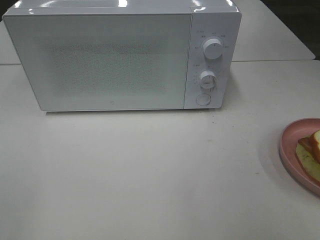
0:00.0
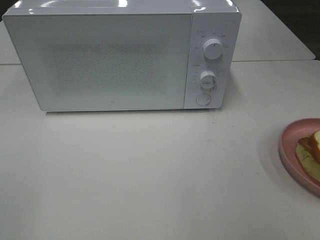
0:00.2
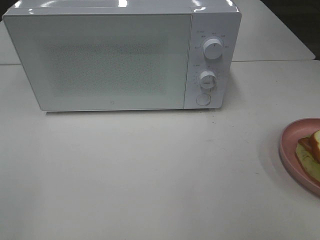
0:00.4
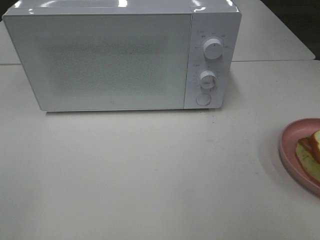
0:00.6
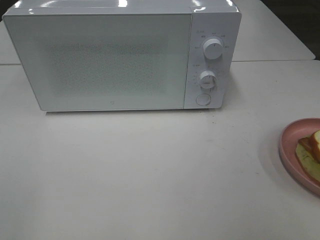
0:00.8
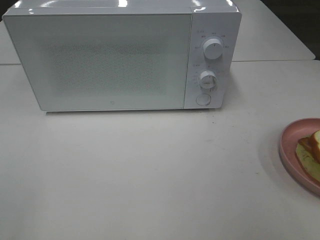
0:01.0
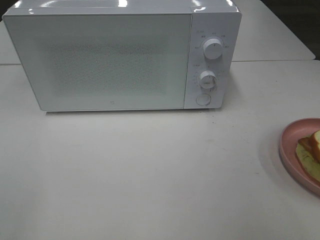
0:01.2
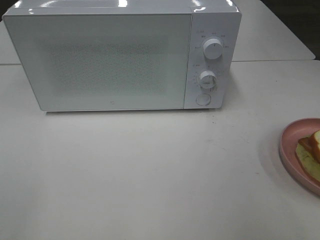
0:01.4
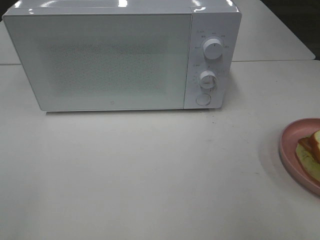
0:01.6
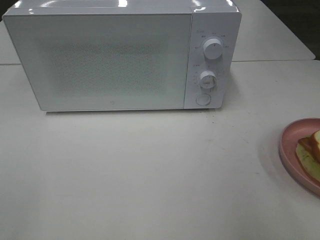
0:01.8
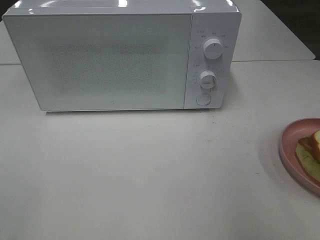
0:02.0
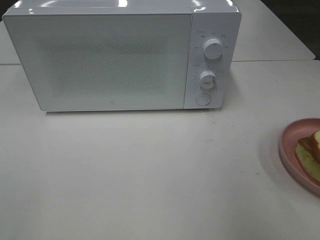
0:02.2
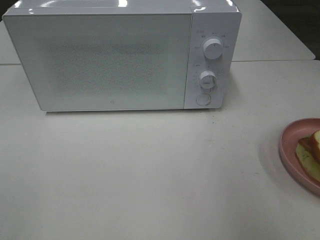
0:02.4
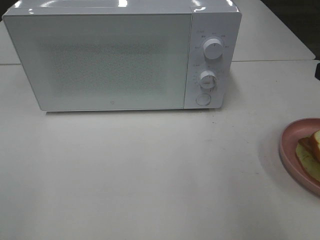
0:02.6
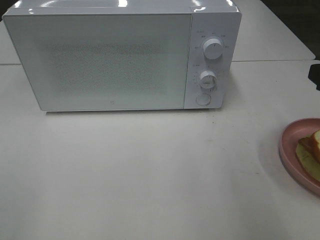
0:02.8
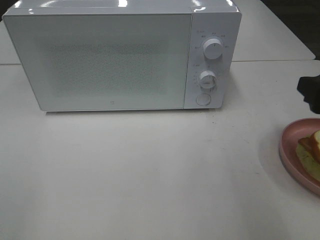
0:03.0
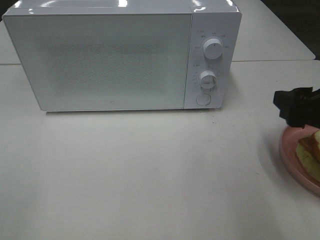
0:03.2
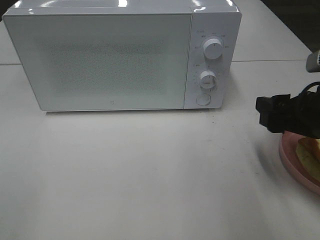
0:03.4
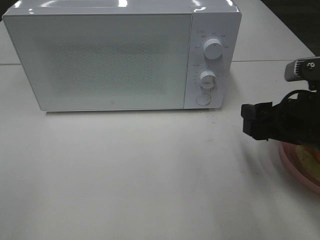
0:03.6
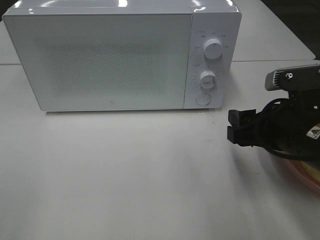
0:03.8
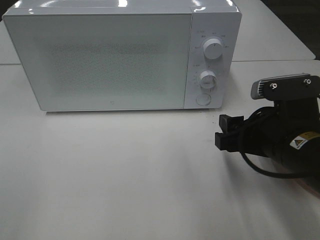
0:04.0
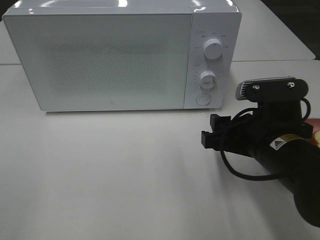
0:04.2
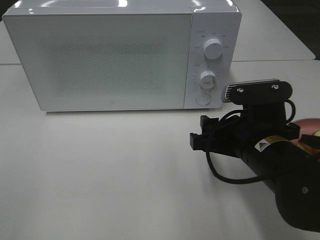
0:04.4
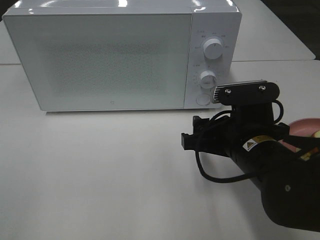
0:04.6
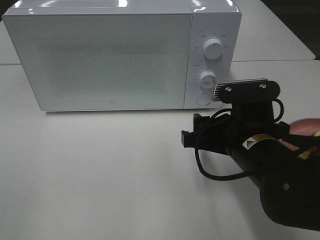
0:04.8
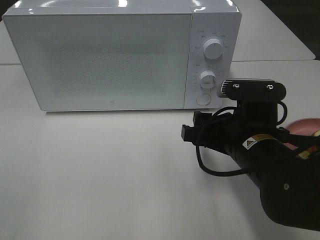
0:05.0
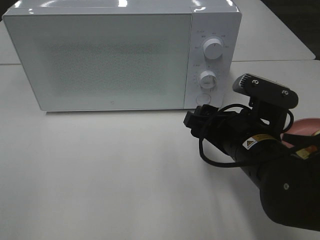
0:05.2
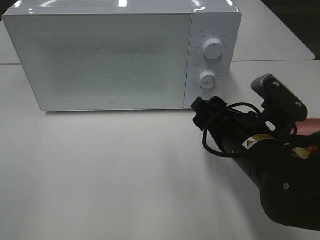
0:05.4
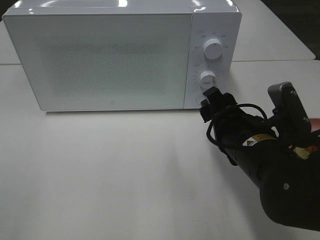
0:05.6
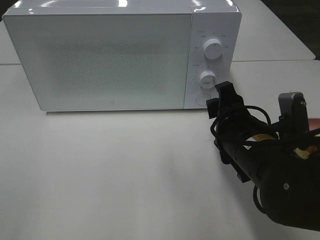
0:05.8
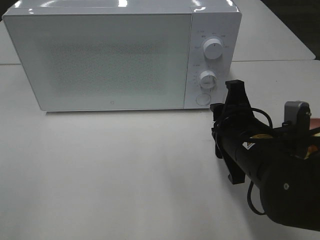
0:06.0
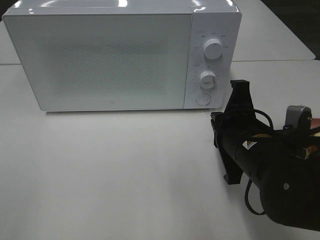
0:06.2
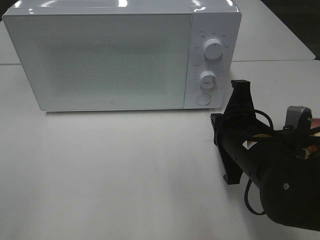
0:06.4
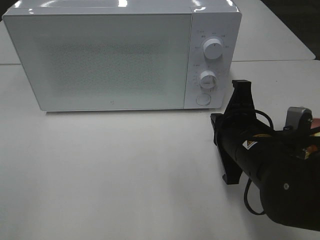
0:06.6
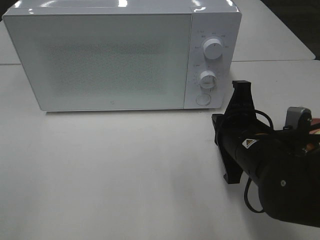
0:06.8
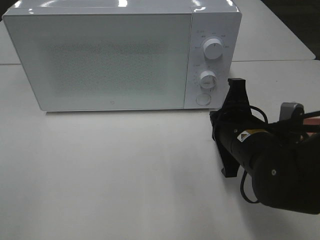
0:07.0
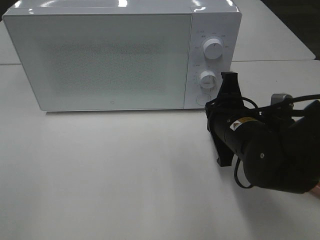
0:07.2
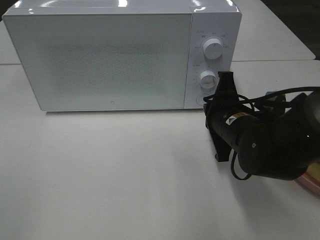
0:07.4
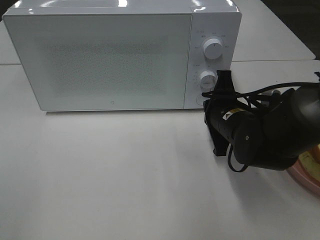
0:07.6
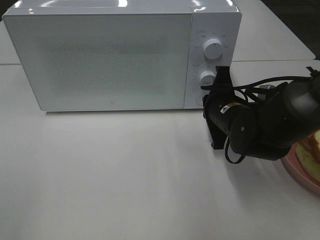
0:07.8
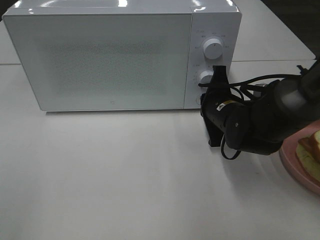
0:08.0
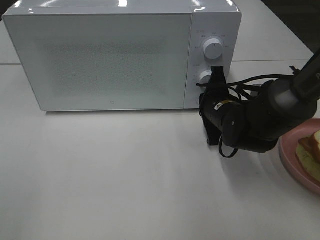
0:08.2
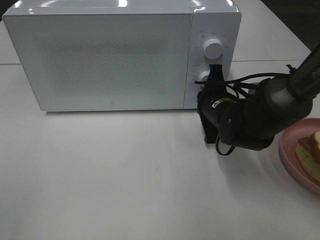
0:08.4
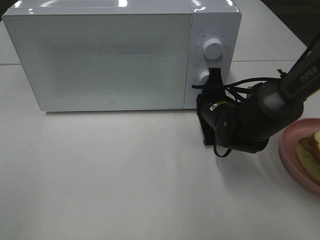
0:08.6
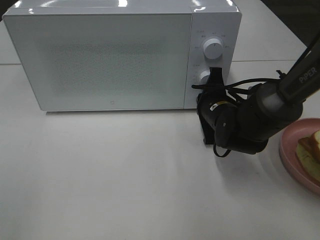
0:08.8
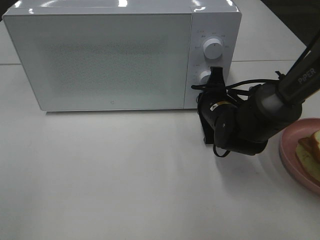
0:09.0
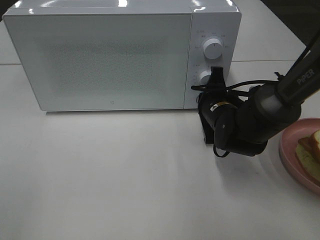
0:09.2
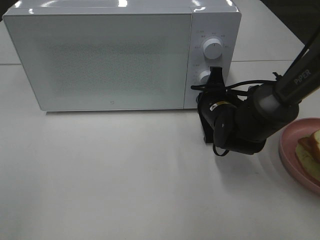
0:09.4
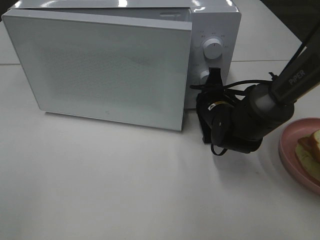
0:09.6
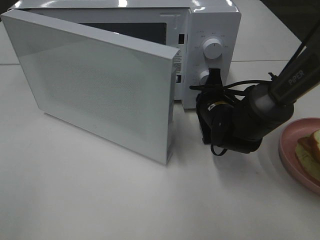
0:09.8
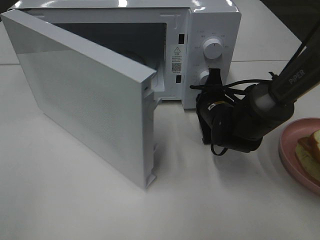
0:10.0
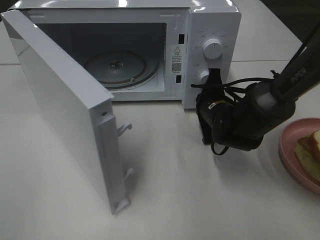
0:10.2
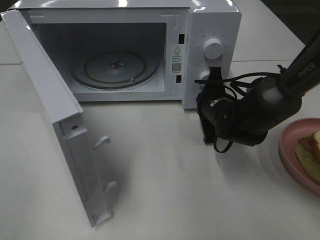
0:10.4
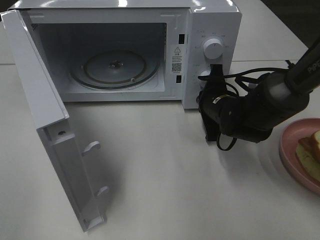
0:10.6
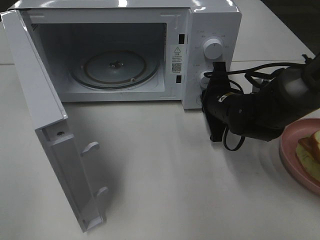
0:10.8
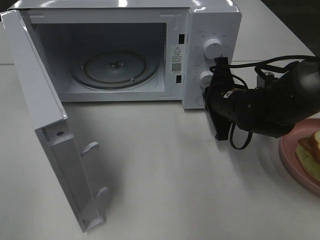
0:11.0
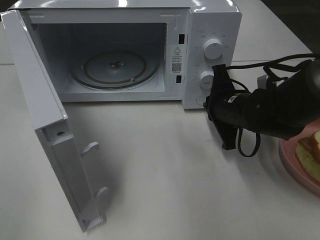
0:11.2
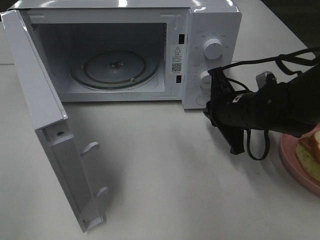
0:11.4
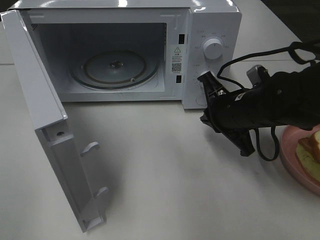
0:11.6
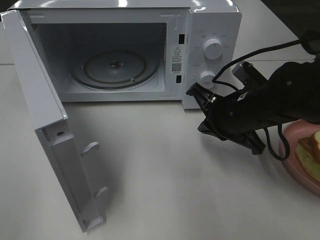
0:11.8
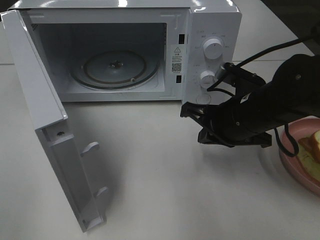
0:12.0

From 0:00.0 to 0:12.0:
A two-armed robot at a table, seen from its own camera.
Task of the whole recording: Heat Sandwich.
Step, from 0:00.0 to 0:11.0: Right hand: press the switch.
From 0:01.6 to 0:03.0: The right gripper shifts approximately 15 cm forward and downward.
From 0:03.0 to 0:04.4: The right gripper shifts approximately 15 cm to the left and downward.
From 0:06.0 to 0:07.6: The right gripper shifts some 10 cm forward, and closes its fingers.
From 0:07.6 to 0:09.0: The right gripper shifts by some 5 cm.
From 0:10.4 to 0:12.0: The right gripper travels backward and upward by approximately 10 cm.

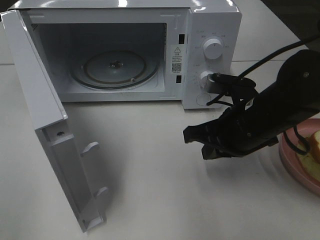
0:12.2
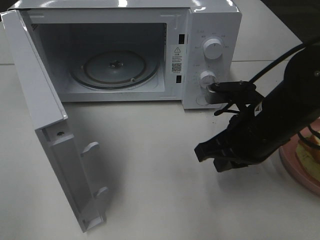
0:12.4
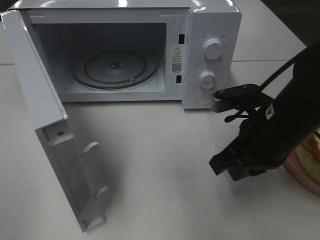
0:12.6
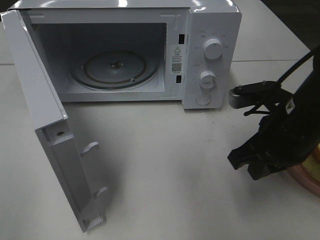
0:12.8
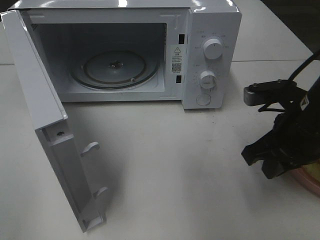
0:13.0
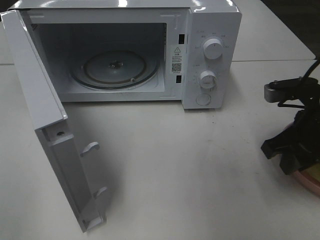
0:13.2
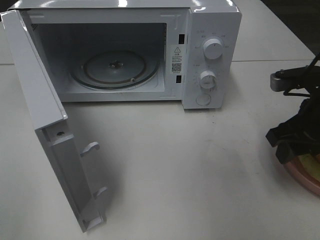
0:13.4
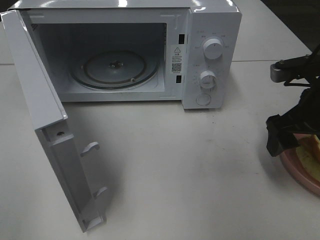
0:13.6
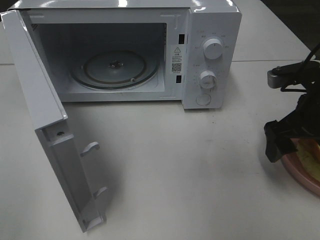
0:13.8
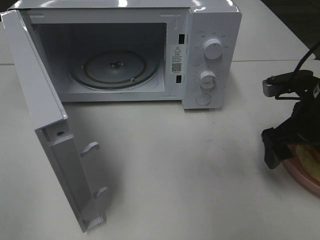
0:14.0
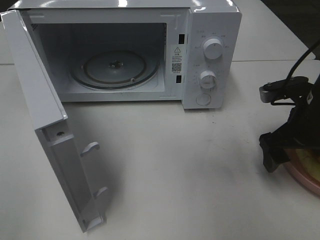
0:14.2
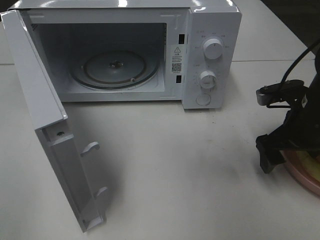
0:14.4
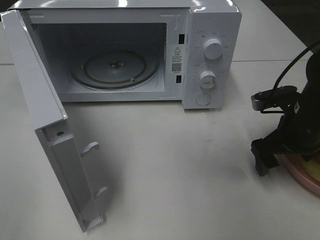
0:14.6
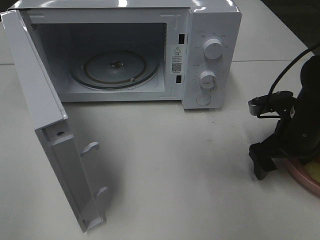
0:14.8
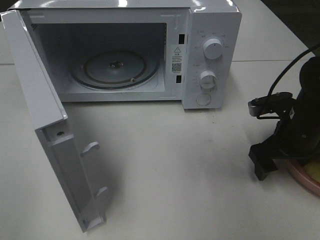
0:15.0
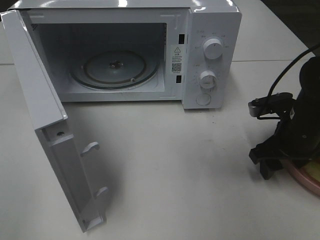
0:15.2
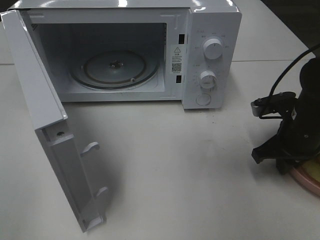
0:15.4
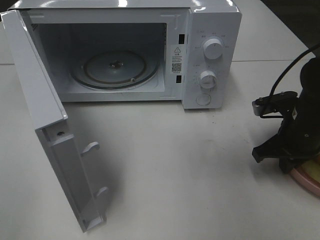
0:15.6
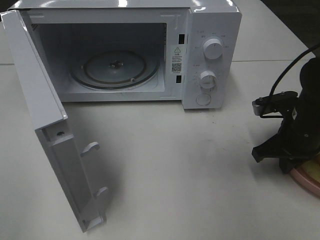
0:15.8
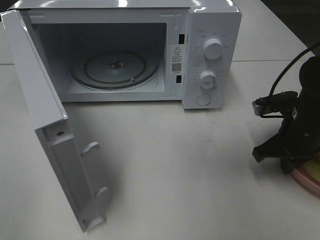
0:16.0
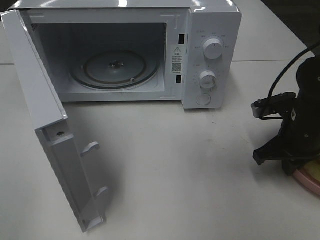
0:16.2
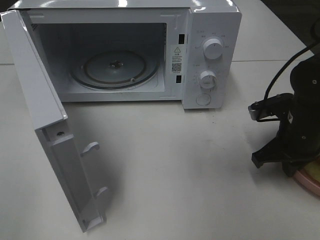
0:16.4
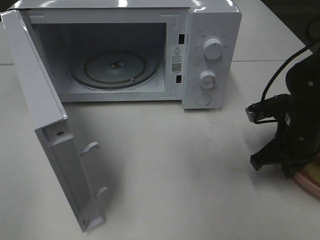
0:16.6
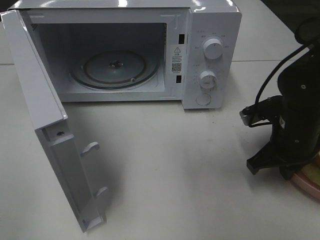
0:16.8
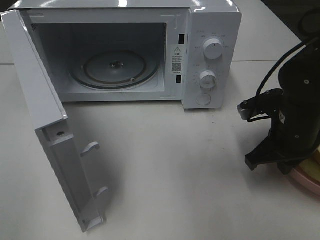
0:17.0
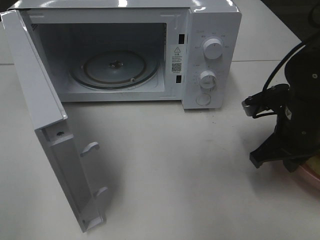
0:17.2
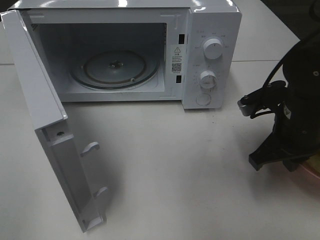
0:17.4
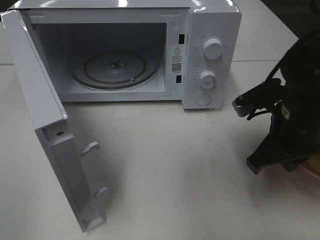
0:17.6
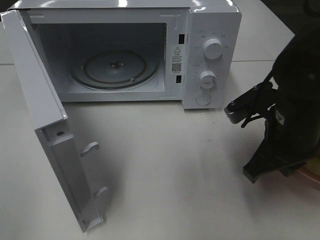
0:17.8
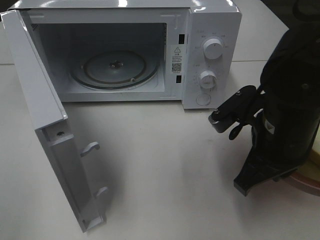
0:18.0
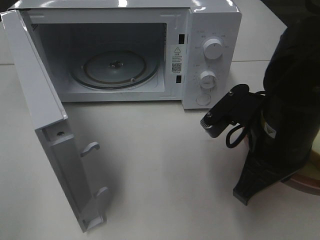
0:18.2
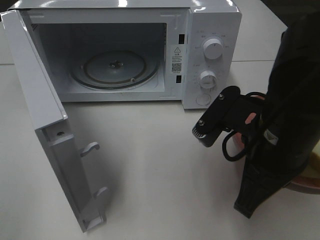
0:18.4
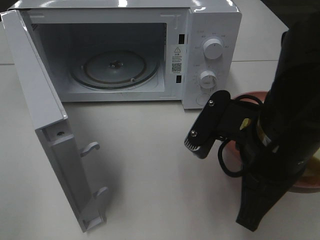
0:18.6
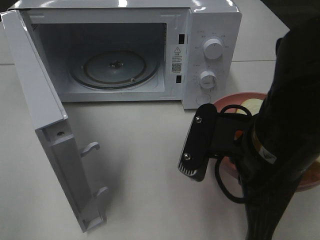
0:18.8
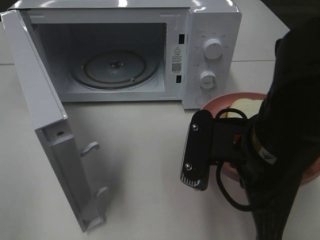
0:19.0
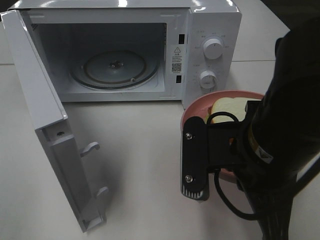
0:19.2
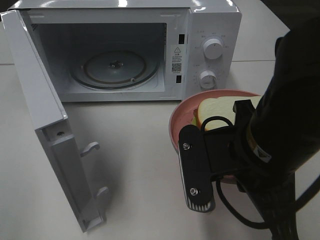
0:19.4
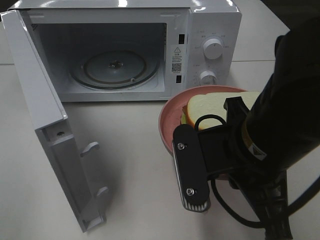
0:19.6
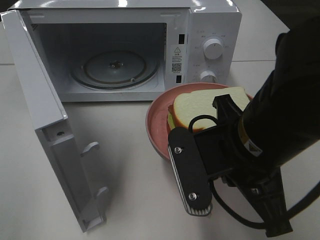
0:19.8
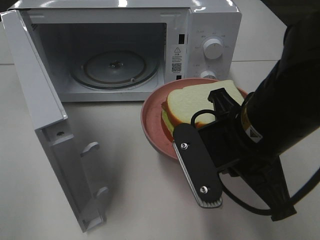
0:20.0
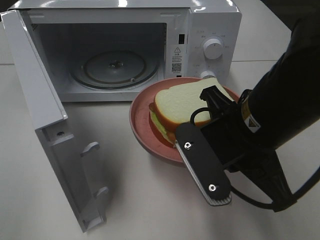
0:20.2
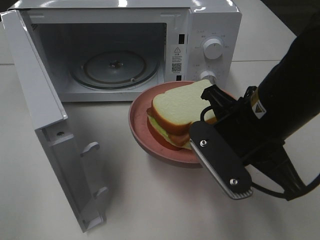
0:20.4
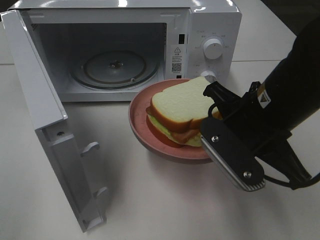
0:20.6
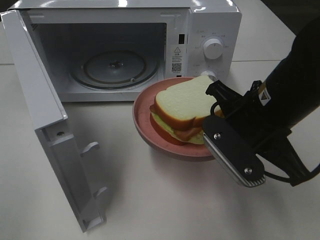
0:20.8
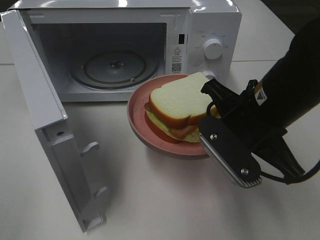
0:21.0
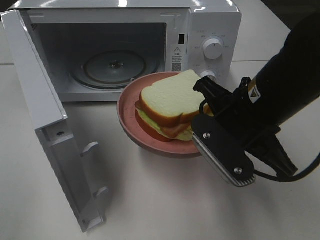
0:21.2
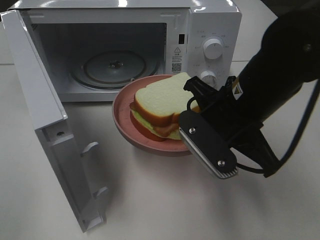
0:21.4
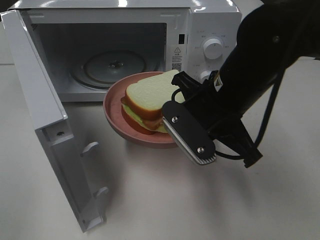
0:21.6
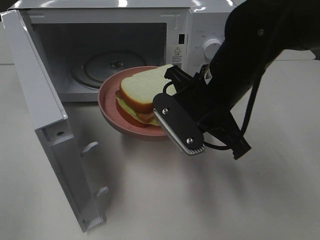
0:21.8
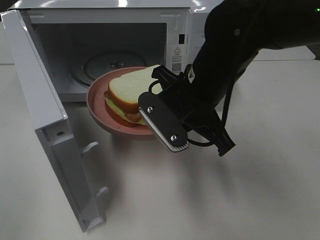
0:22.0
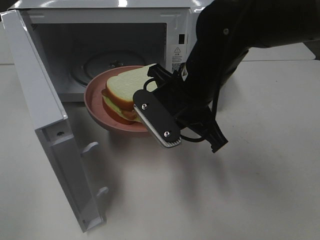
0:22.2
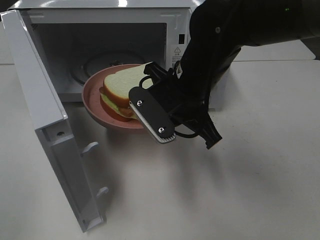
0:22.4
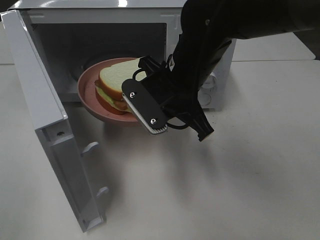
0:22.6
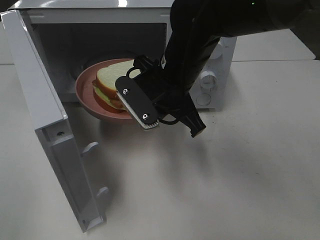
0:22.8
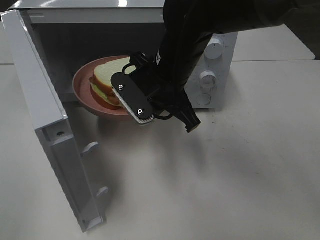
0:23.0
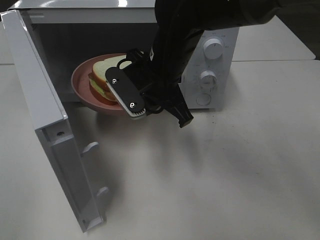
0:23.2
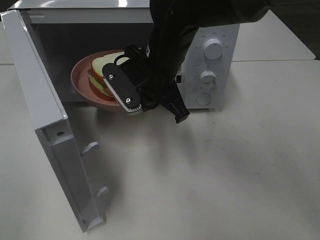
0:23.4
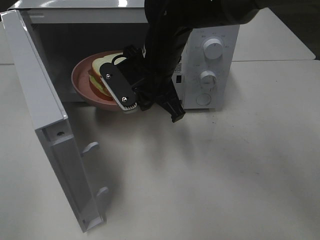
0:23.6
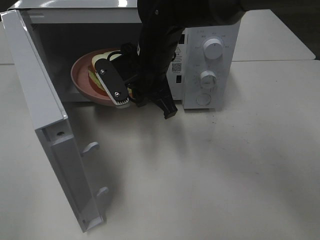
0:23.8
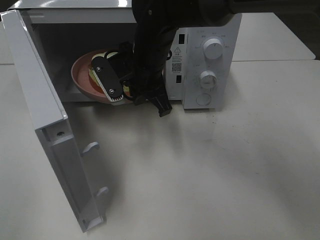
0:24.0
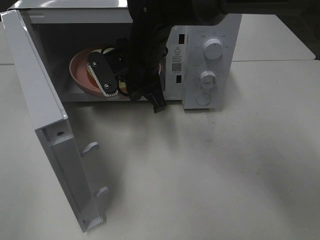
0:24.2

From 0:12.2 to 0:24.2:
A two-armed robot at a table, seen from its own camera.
Task of the whole recording: Heat Sandwich.
Step, from 0:12.2 to 0:16.2: Right hand: grab the plate with the sandwich.
From 0:12.2 to 0:13.8: The right gripper shifts approximately 10 cm to the right, and opens.
From 0:13.8 to 0:15.2: The right gripper is displaced downward by approximately 5 cm.
From 0:15.2 to 0:16.6: The right gripper closes up.
From 0:16.6 to 0:18.2: The right gripper travels to the left, backward and upward by roughly 15 cm.
From 0:18.2 to 0:19.8: The right gripper moves roughly 5 cm.
From 0:19.8 to 0:21.2: The right gripper travels forward by approximately 5 cm.
From 0:21.2 to 0:22.6: The right gripper goes about 10 cm to the left and forward.
From 0:22.6 to 0:24.2: The right gripper heads forward and to the left, covering some 10 cm.
